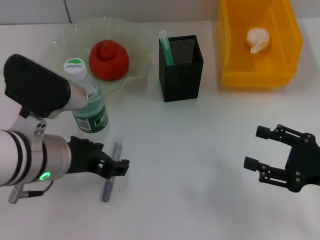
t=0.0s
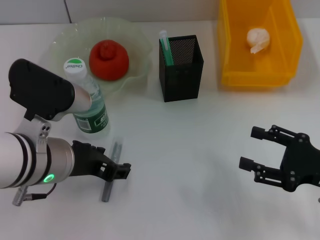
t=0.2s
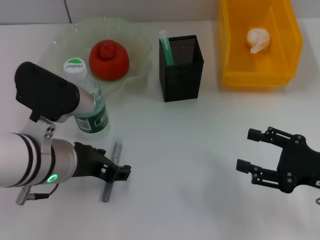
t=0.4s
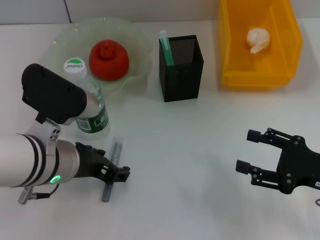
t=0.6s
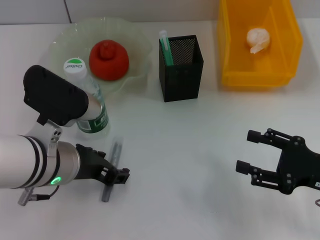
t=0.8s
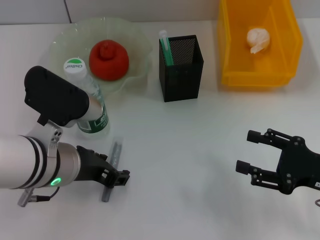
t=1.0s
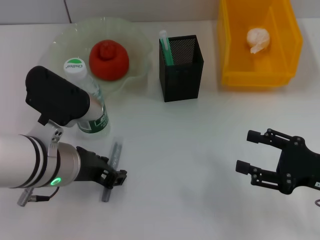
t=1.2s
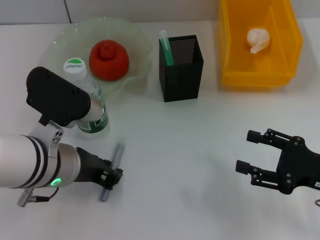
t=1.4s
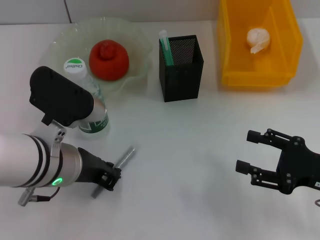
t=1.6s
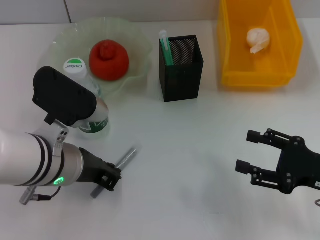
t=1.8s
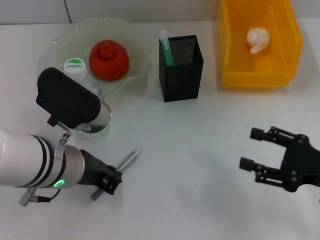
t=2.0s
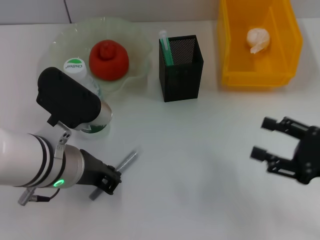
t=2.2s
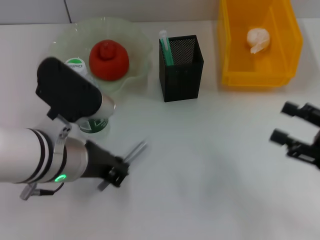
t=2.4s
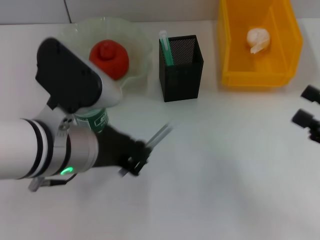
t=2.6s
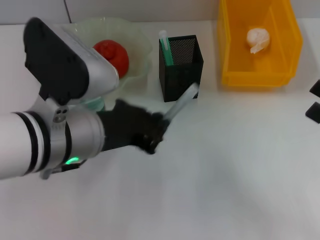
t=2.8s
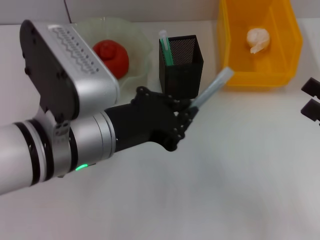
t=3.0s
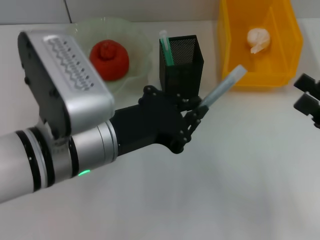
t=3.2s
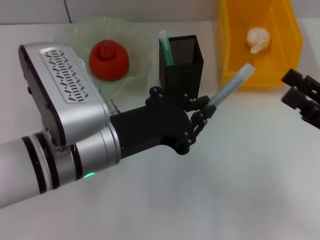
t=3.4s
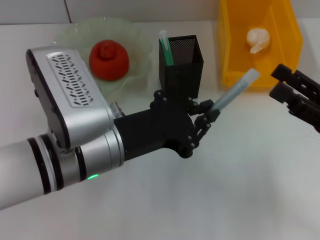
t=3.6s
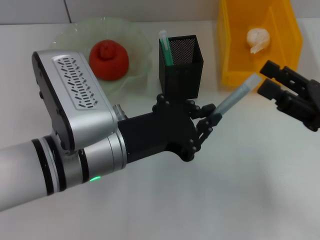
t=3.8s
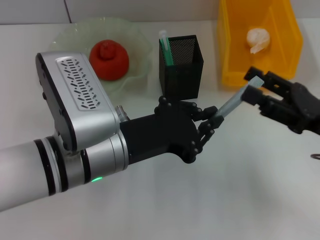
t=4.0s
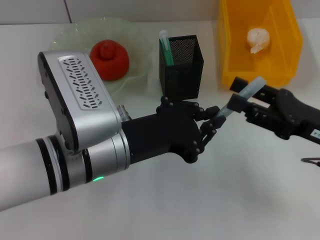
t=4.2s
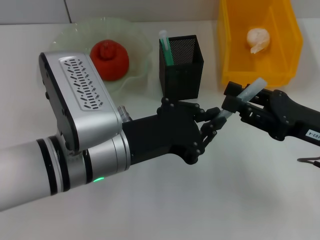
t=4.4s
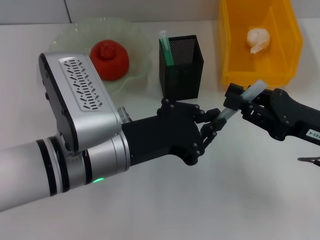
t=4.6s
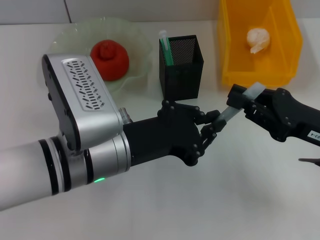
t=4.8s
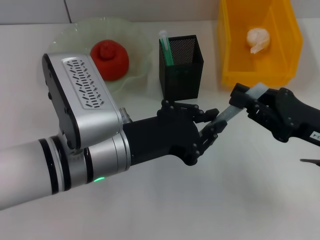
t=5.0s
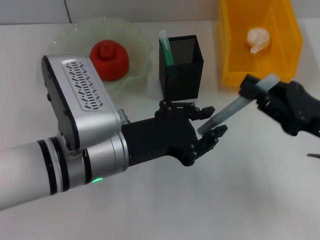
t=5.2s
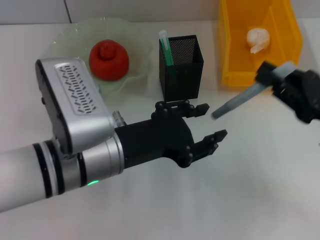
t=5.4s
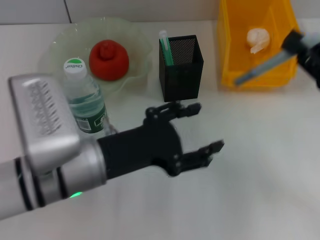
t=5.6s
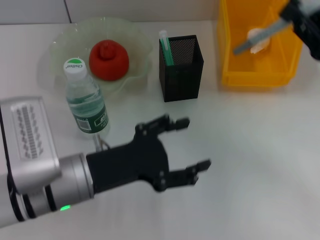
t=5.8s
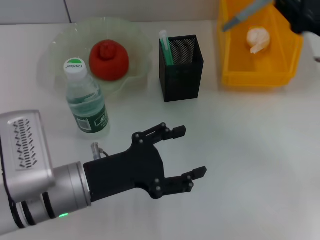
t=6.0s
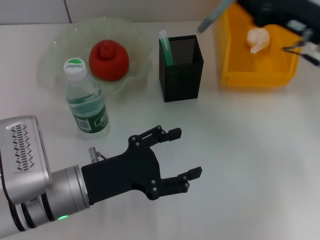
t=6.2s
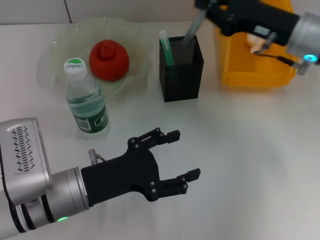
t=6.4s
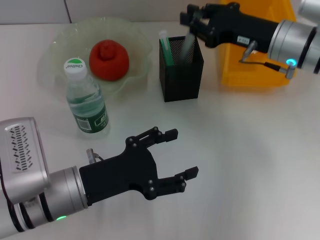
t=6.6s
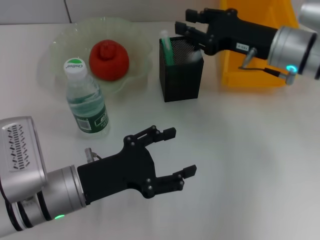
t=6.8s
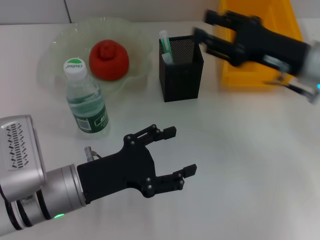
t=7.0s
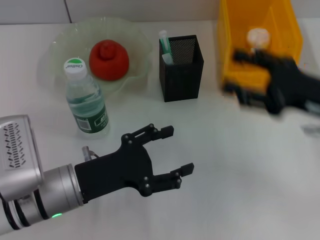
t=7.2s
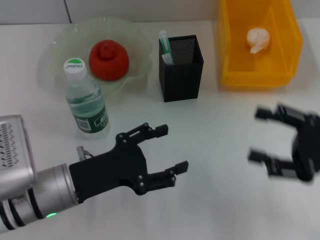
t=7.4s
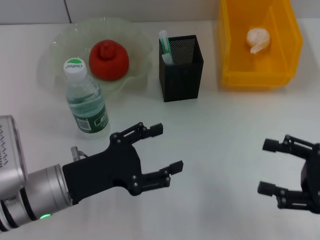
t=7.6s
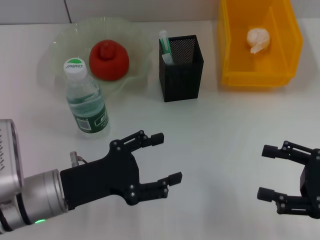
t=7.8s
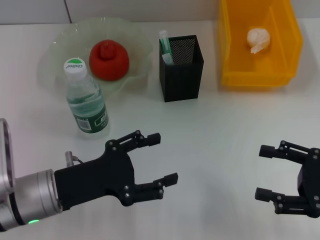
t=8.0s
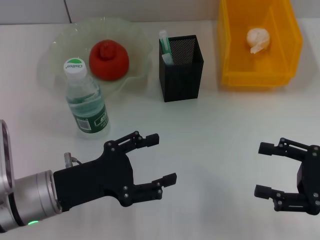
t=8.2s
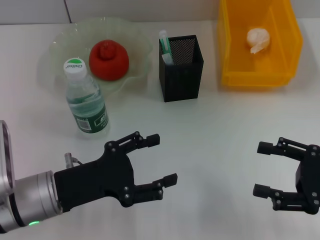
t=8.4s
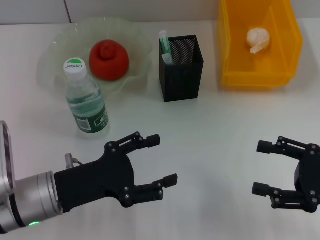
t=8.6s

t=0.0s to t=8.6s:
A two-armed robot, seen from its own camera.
Step, t=0.0s to t=2.0s: Grab the gray glue with the left hand.
Step, t=2.2s to t=5.0s: Pass the gray glue from the left hand to the right hand.
Step, t=5.2s to t=6.6s: Place the gray glue into the pen holder with the right hand.
t=0.0s to t=1.4s: The grippers make only small movements.
t=1.4s to t=2.8s: The left gripper is displaced upward by approximately 5 cm, and closes up, while the right gripper ends up approximately 5 cm from where it was.
t=2.8s to t=4.4s: The right gripper is displaced to the left and forward by roughly 10 cm.
t=4.4s to t=5.8s: The left gripper is displaced downward by roughly 5 cm, and opens its fingers. The right gripper moves roughly 10 cm, and closes up.
t=5.8s to t=7.2s: The right gripper goes forward and returns, some 10 cm each way, and opens its fingers.
t=7.2s to t=8.6s: The right gripper moves backward, some 10 cm.

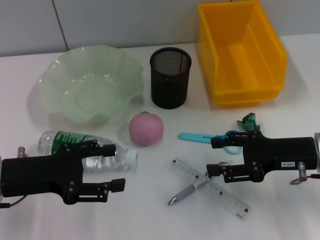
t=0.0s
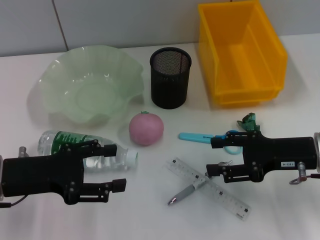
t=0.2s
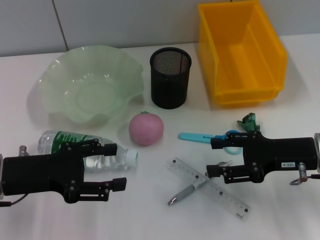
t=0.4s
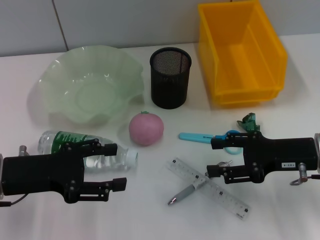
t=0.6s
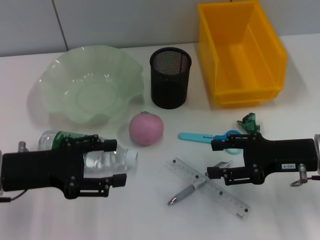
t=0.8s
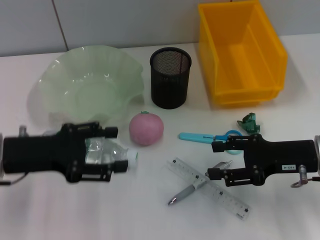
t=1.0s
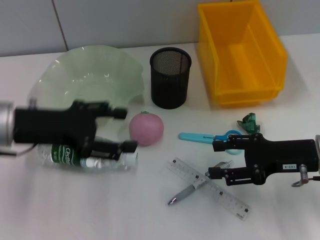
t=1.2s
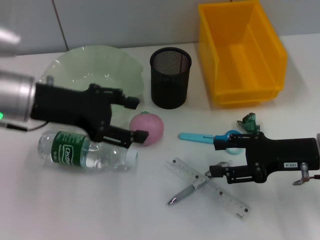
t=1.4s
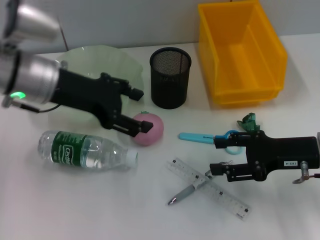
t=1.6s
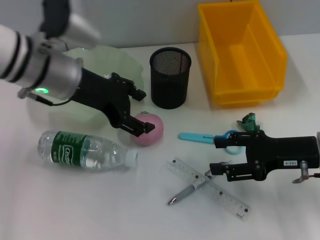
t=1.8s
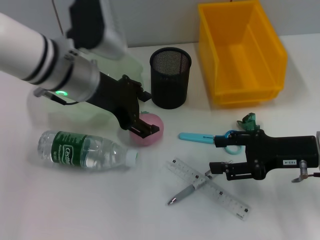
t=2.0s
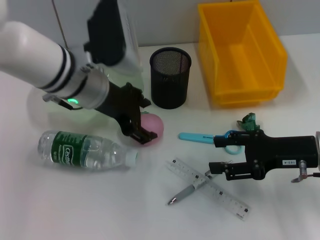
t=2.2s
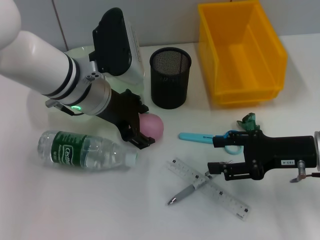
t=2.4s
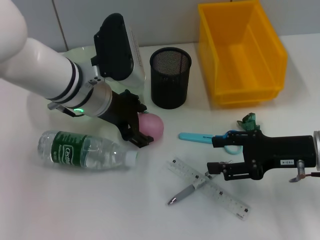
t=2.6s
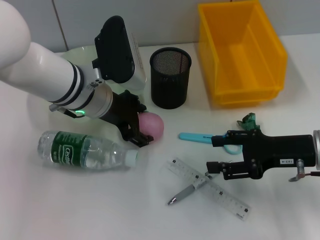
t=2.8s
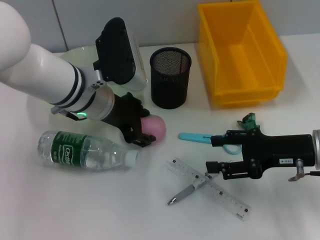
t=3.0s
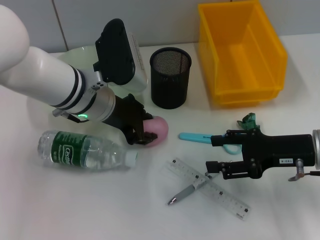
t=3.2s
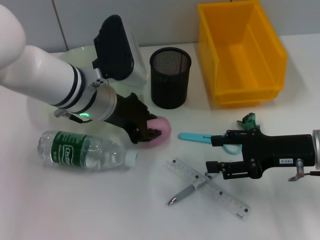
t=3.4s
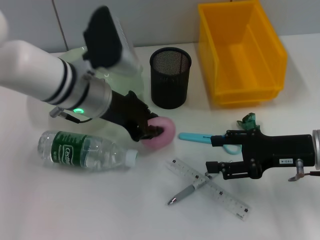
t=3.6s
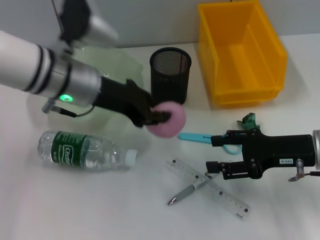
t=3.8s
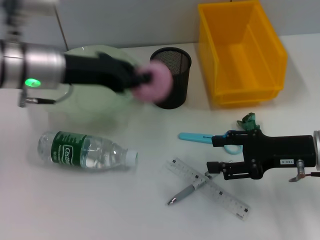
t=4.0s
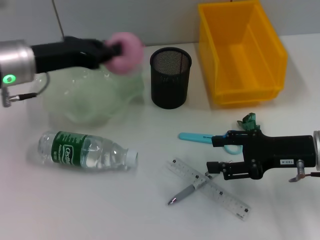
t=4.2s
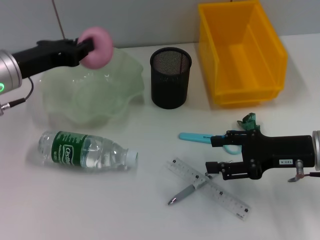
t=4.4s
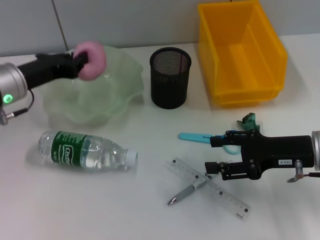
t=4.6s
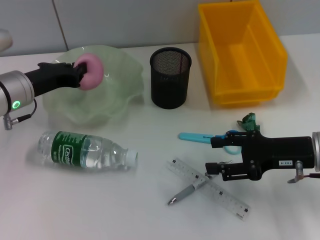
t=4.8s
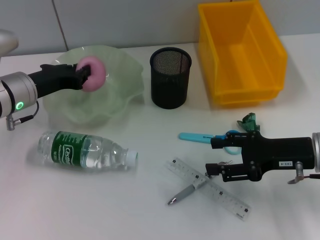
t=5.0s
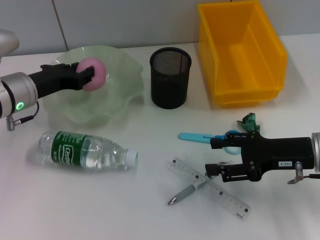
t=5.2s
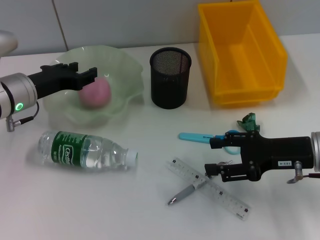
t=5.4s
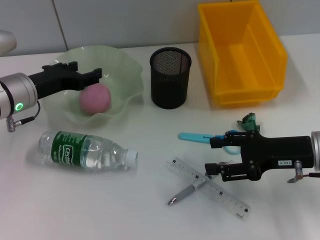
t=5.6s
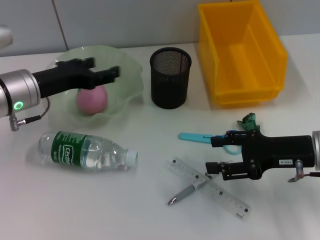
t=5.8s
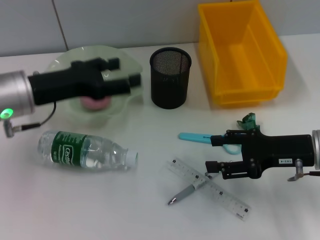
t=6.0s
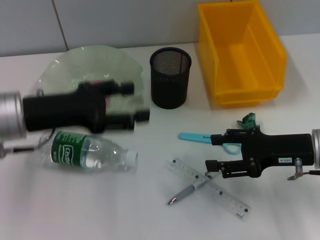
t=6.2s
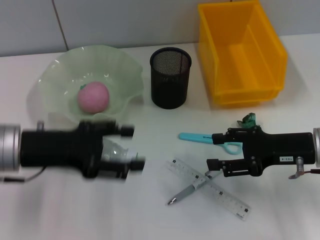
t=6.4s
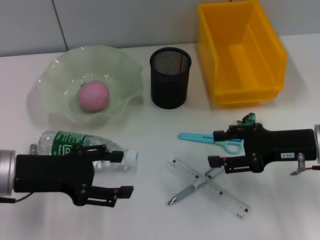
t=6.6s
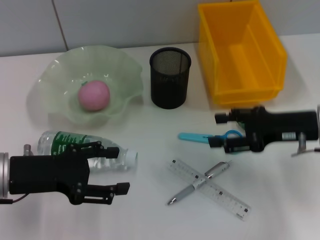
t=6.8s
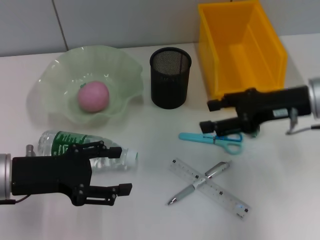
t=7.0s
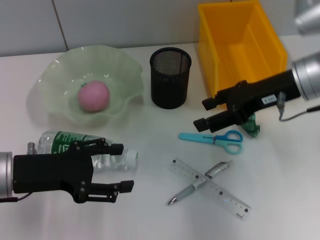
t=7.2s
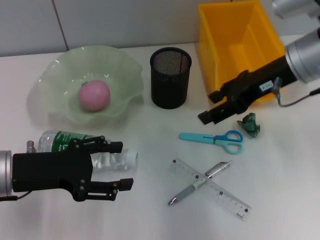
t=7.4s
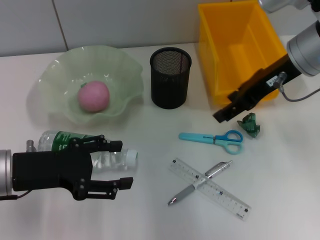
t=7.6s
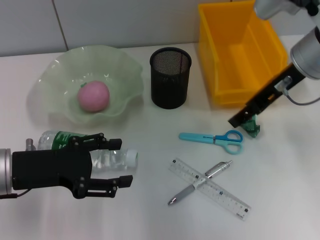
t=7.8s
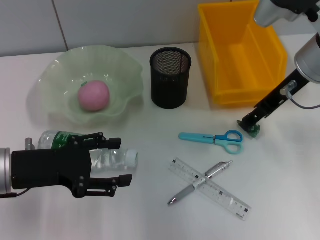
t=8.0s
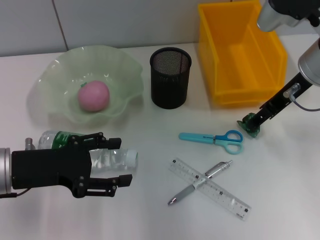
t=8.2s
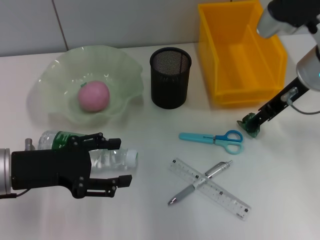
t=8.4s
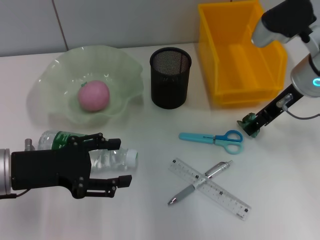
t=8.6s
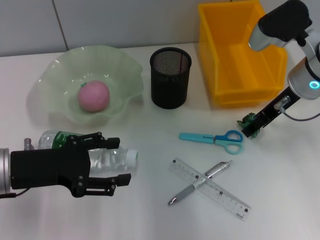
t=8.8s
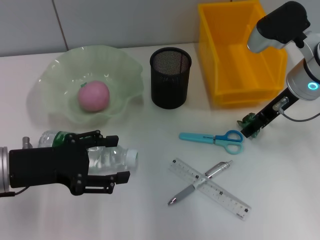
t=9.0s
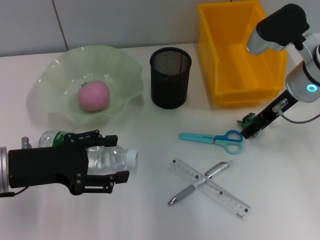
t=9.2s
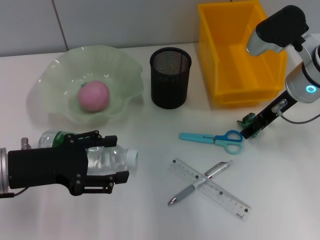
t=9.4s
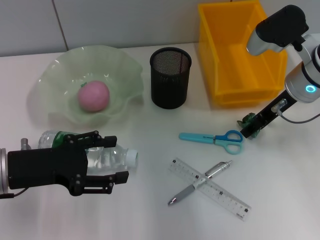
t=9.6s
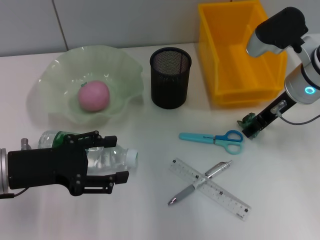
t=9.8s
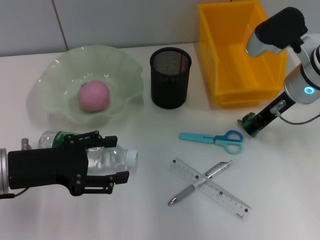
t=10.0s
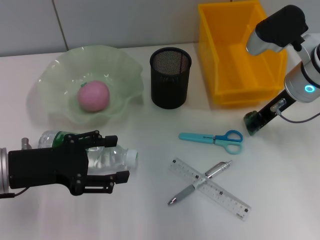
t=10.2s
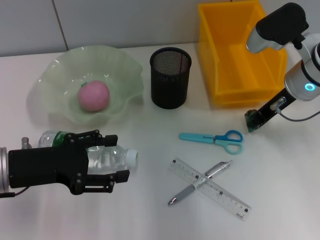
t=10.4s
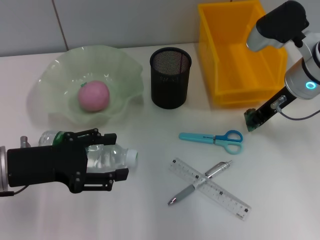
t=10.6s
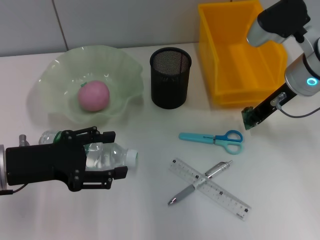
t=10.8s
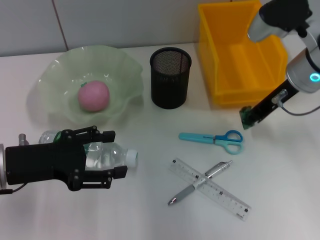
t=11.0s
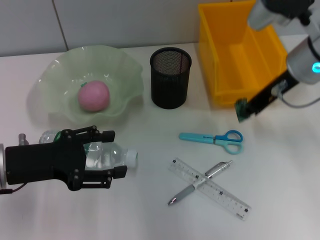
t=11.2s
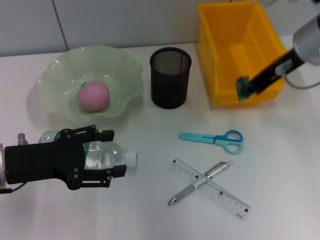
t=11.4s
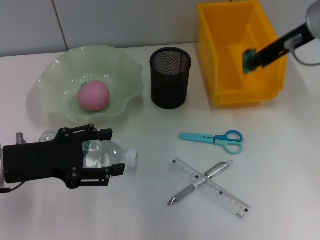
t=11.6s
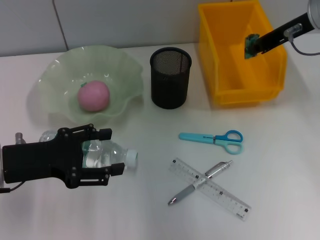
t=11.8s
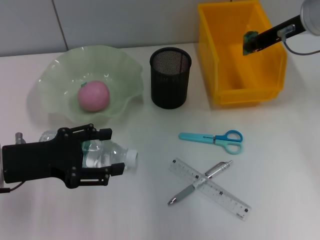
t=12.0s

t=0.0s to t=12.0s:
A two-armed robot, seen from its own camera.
Step, t=0.0s to t=3.2s: Grab the peach with the left hand.
Step, t=3.4s to t=5.4s: Place the peach into the fruit bowl with the left hand.
Step, t=5.6s to t=10.4s: Grab the plastic with the right hand.
t=0.0s to t=1.6s: The left gripper moves forward, upward and to the right, about 15 cm.
t=1.6s to t=3.0s: The left gripper moves to the right and downward, approximately 10 cm.
t=3.0s to t=4.4s: The left gripper goes some 15 cm to the left, and closes up.
t=4.4s to t=6.0s: The left gripper opens.
t=6.0s to t=7.6s: The left gripper moves backward, roughly 10 cm. The right gripper travels upward, forward and to the left by some 15 cm.
t=7.6s to t=9.0s: The right gripper goes roughly 5 cm downward.
t=9.0s to t=10.4s: The right gripper closes.
t=10.4s to t=12.0s: The right gripper heads upward, covering roughly 5 cm.

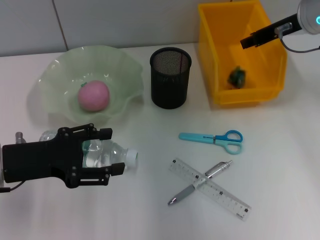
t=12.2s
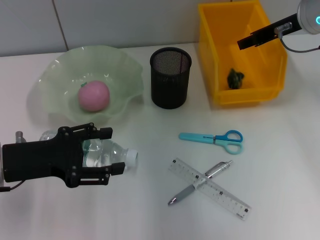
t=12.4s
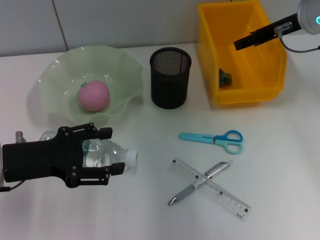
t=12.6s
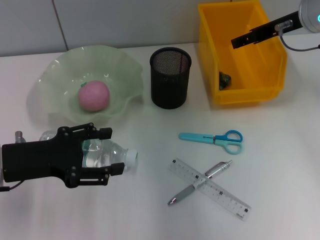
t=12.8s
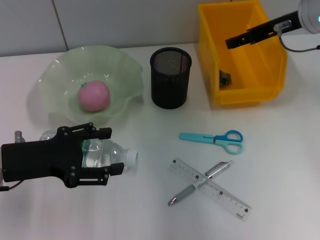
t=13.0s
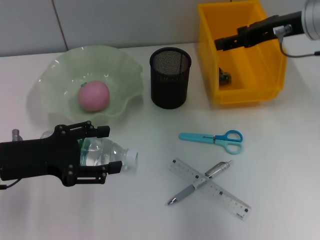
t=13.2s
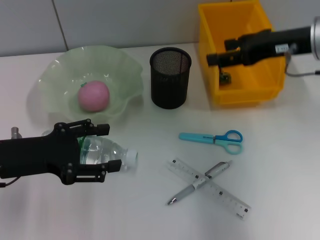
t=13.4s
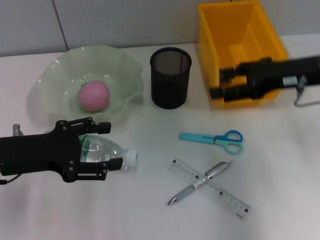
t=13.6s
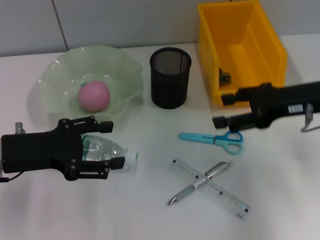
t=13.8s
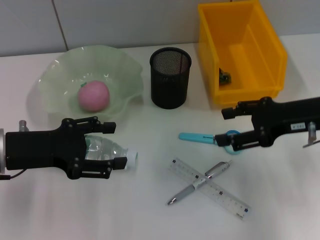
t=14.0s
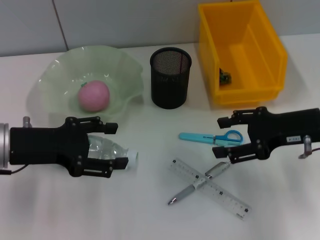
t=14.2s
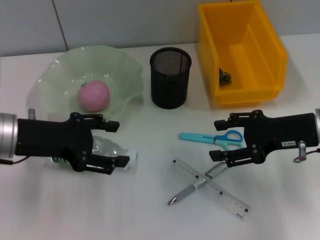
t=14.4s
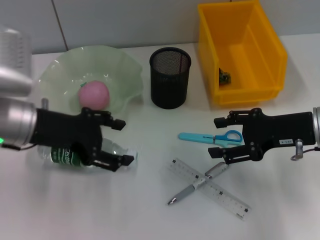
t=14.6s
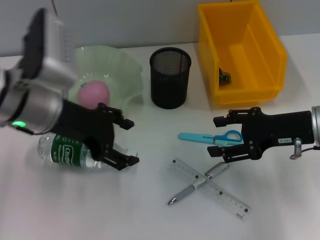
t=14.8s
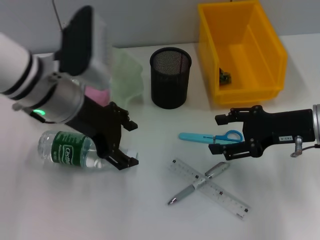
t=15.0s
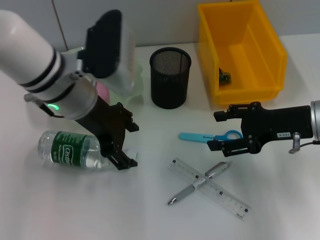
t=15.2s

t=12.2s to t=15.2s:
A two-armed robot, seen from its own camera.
t=12.2s to t=13.8s: The right gripper goes approximately 10 cm backward and downward, and opens up.
t=13.8s to t=15.2s: The left gripper moves to the right, forward and upward, roughly 15 cm.
